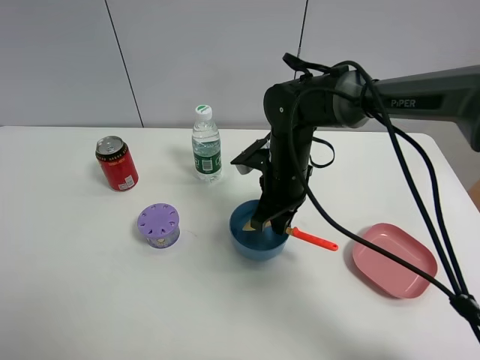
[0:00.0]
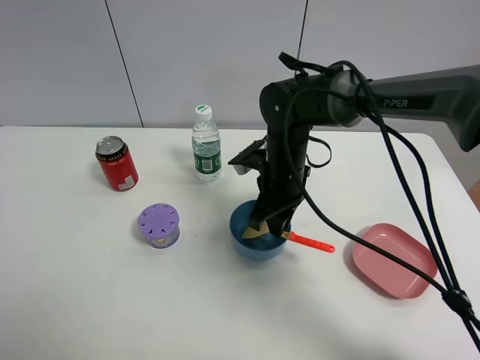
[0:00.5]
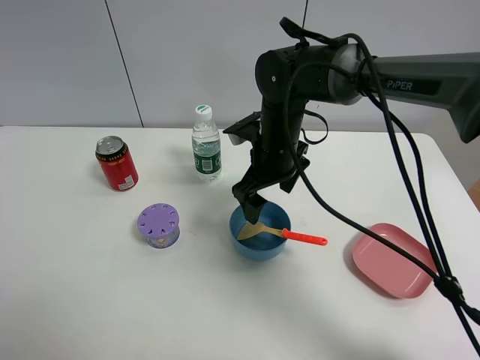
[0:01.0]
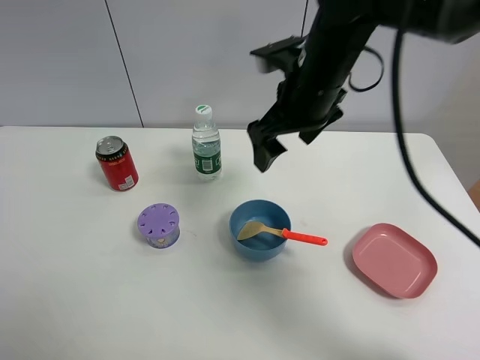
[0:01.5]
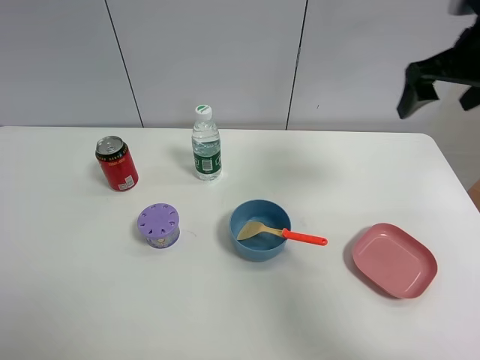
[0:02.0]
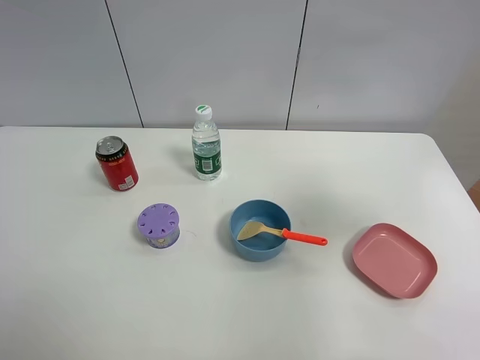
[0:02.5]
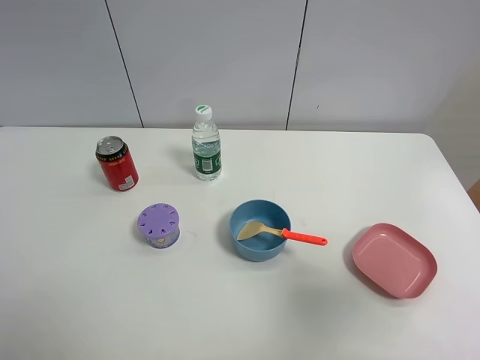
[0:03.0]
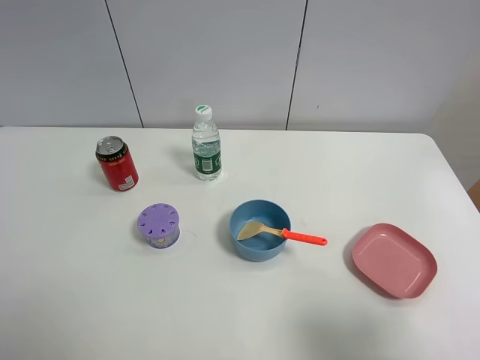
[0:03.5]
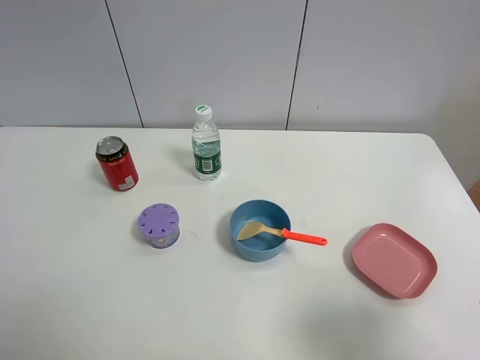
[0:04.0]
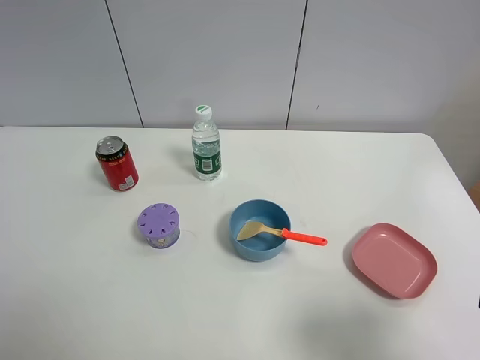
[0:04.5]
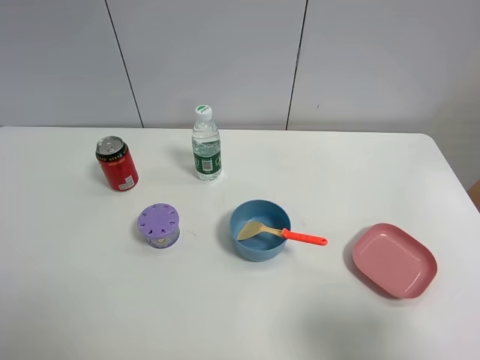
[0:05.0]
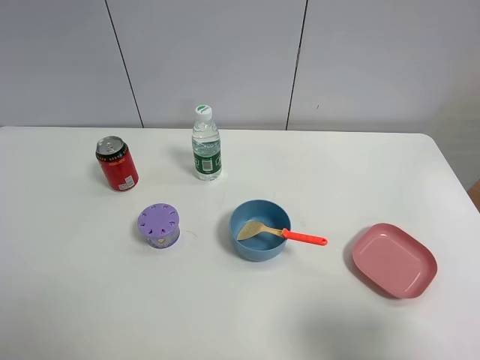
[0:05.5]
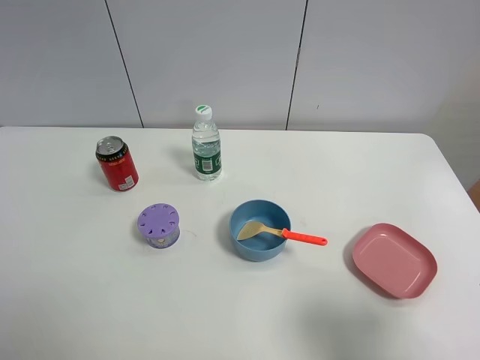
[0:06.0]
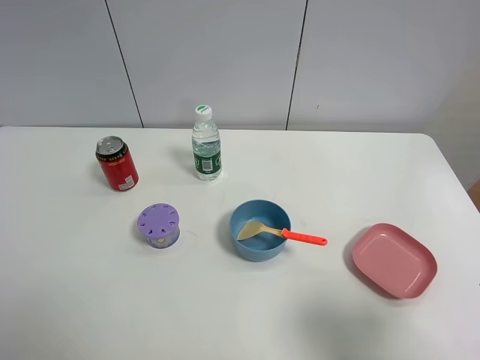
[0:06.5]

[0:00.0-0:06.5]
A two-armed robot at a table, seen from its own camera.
Task of the whole recording: the gripper move the object.
0:00.0 to 0:02.0: The right gripper shifts roughly 30 cm to the right and upward, and opens its fingers.
0:02.0 to 0:04.5: The right gripper goes roughly 30 cm backward.

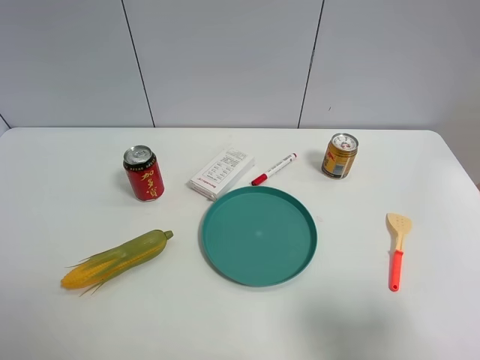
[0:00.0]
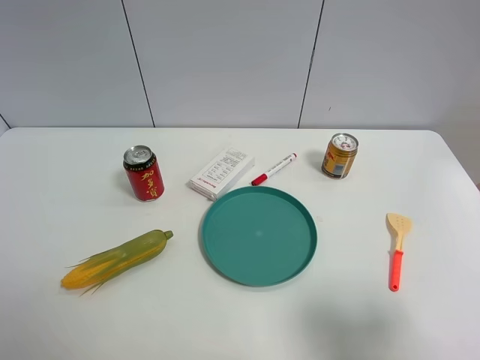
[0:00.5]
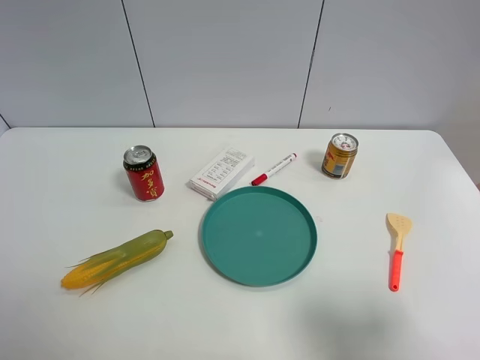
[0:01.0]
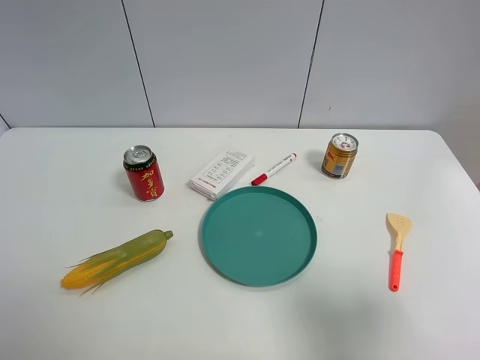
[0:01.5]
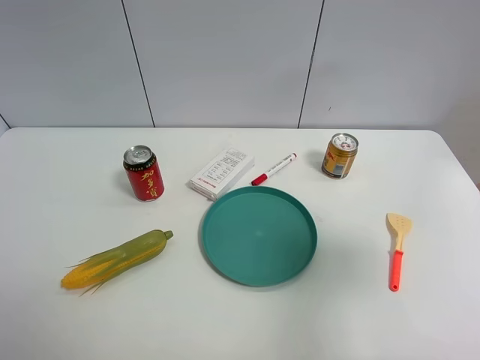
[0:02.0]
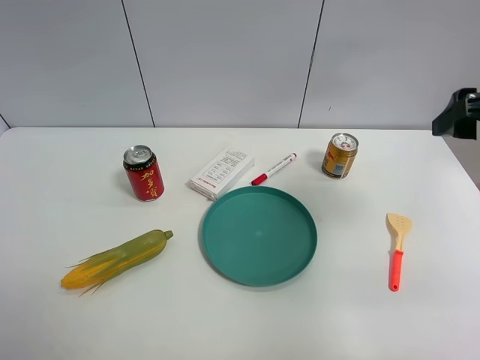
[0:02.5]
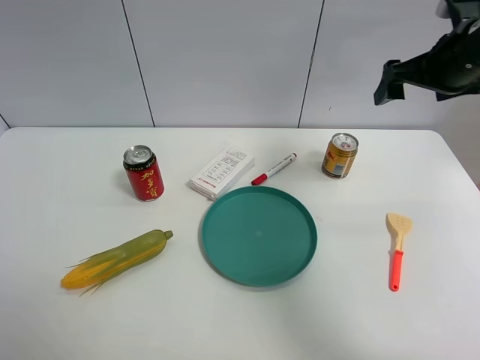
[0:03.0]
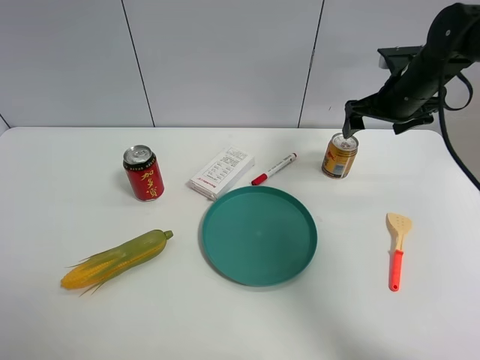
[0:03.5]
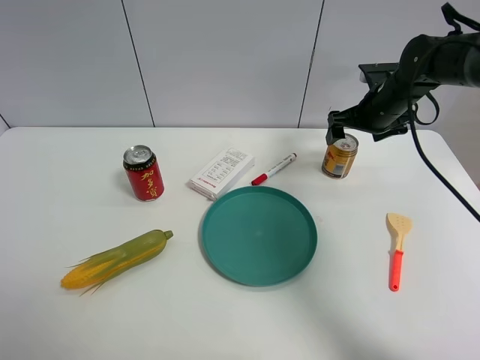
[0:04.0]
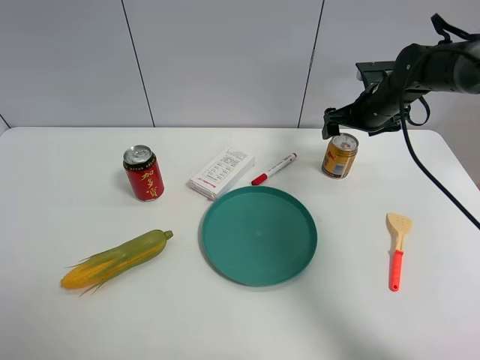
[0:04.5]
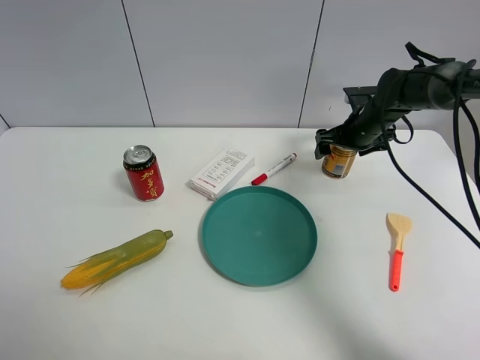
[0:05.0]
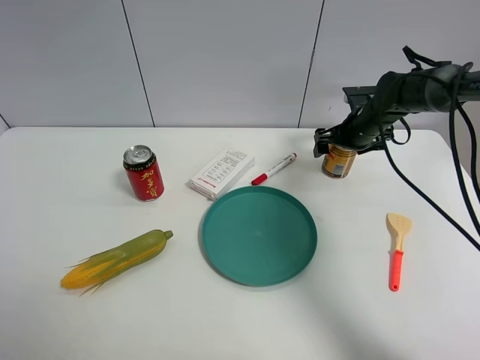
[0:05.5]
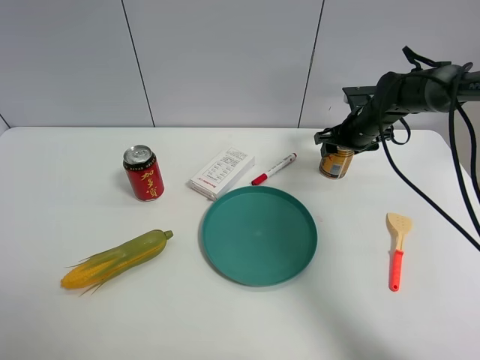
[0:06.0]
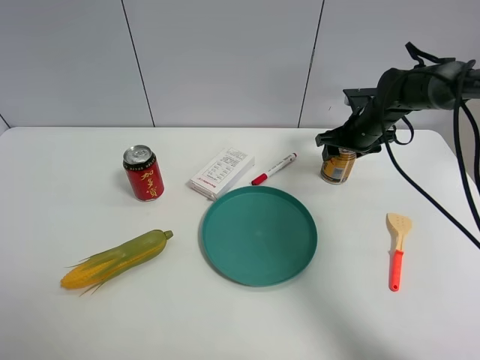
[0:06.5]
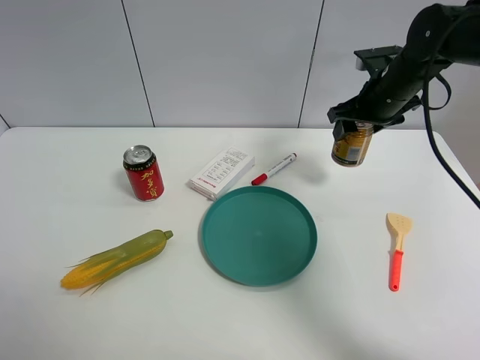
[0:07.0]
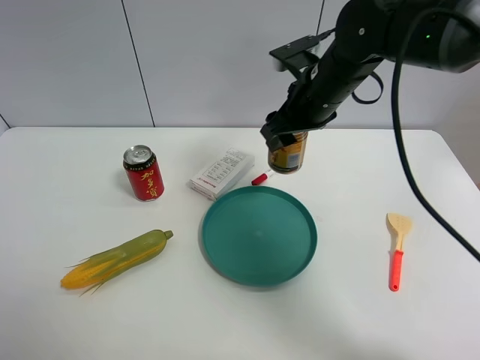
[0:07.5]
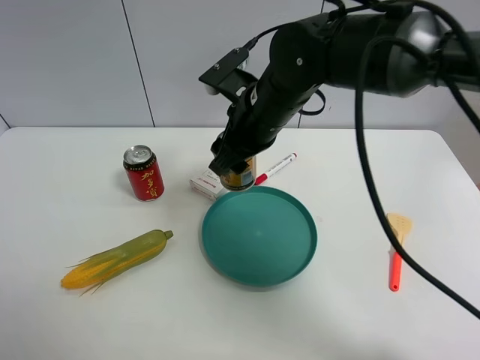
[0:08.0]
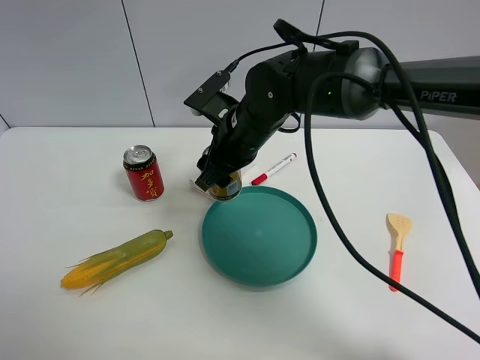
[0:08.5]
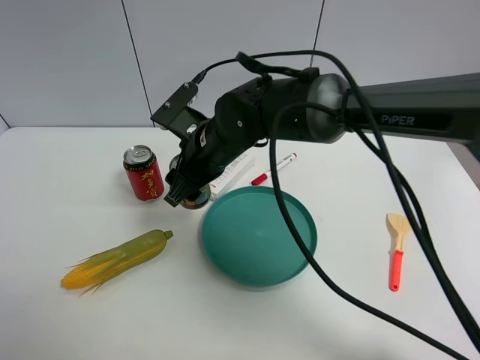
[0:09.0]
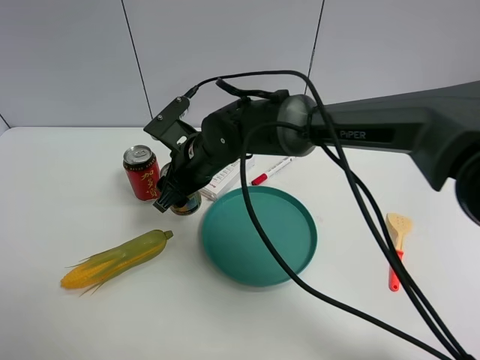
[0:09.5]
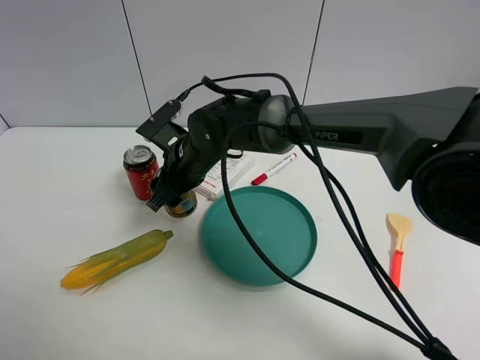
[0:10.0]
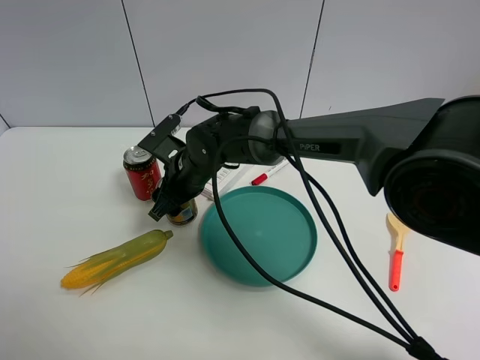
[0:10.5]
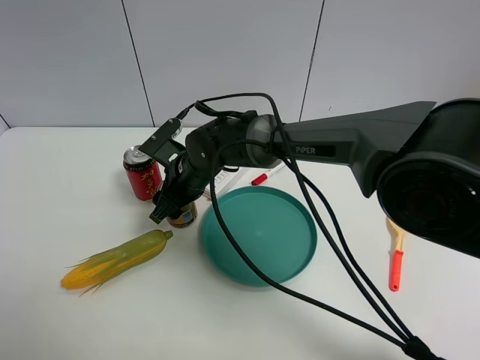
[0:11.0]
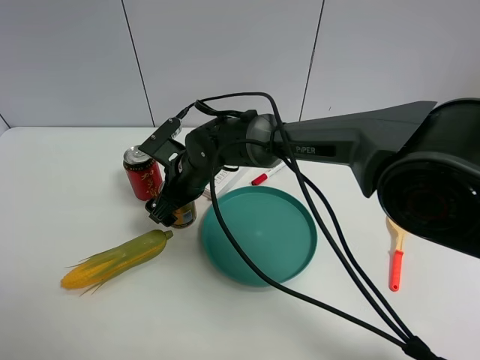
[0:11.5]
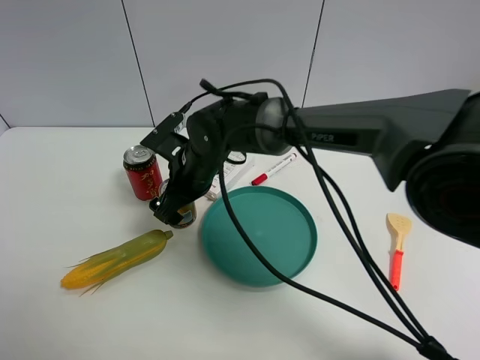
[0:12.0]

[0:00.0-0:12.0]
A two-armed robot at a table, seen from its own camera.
Task of the whole recording: the gripper move the object.
Step, 0:00.0 to 0:05.5: Grasp the red bull with the right gripper.
Step, 0:06.0 to 0:11.0: Place the red bull on the table with the right gripper.
0:00.0 to 0:02.0: The right gripper moves forward and upward, some 10 cm.
0:02.0 to 0:04.0: The right gripper heads forward and downward, covering roughly 35 cm.
0:04.0 to 0:06.0: The right gripper shifts roughly 5 cm downward, and closes.
0:06.0 to 0:08.0: The right gripper moves to the left, backward and upward, approximately 30 cm.
0:08.0 to 0:10.0: The right gripper is displaced to the left and downward by some 15 cm.
0:10.0 to 0:12.0: The right gripper opens up.

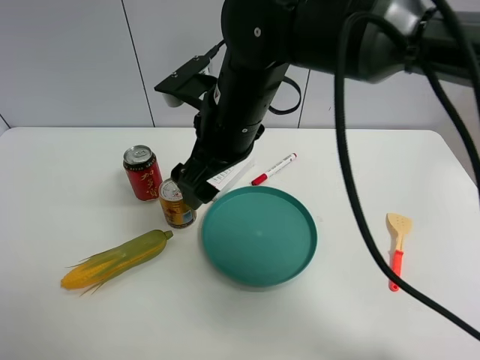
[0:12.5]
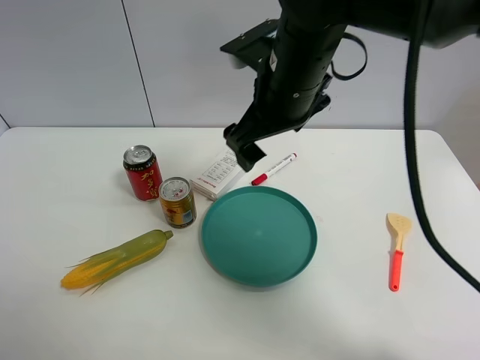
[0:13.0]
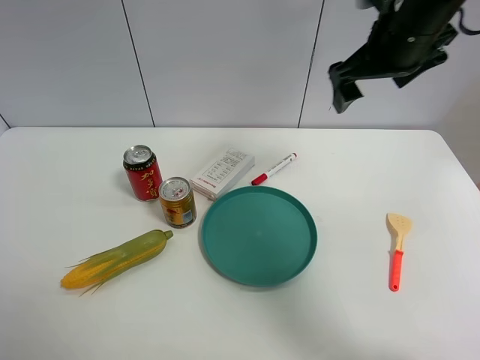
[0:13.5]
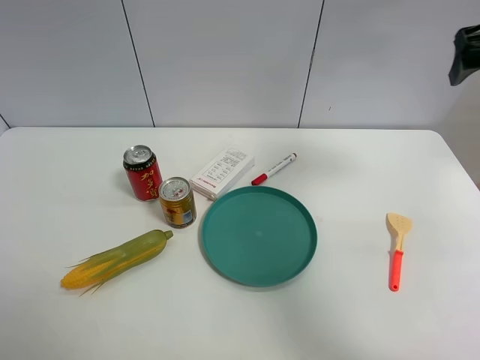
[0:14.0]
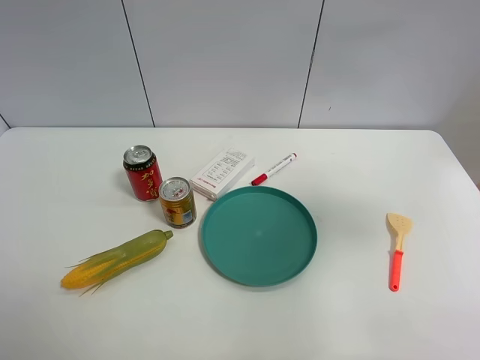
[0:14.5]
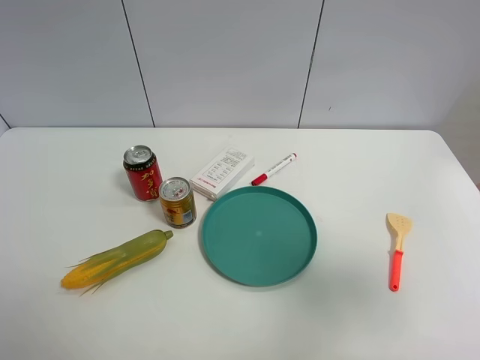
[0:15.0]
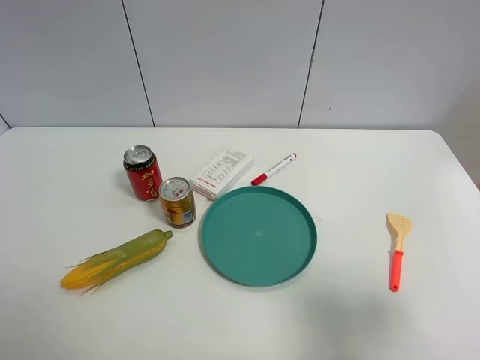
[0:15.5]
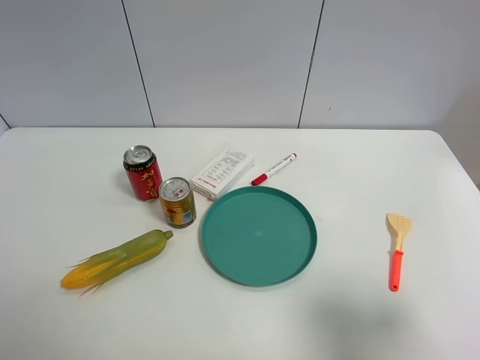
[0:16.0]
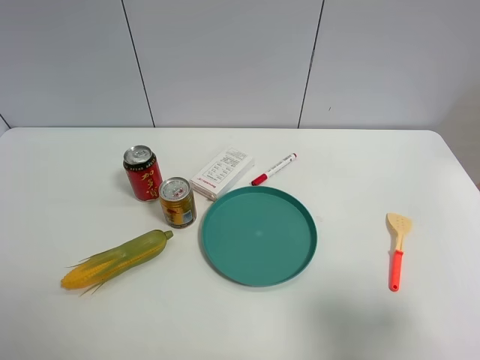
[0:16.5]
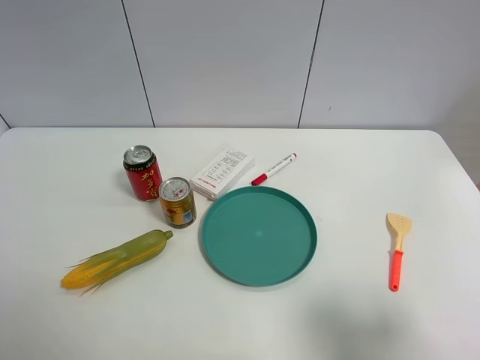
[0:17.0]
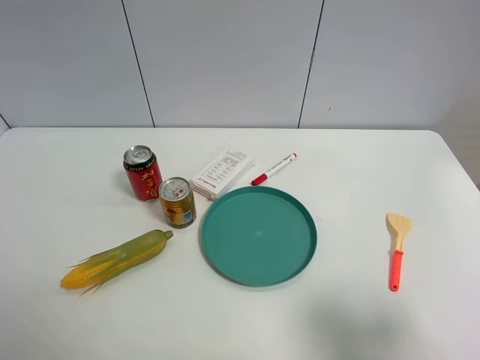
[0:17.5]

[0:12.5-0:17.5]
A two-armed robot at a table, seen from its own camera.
Task of the whole recording: the gripper move the object.
0:12.5 to 0:15.0: The right gripper goes some 40 cm to the right and backward.
0:15.0 to 0:17.5: The right gripper is displaced downward by about 10 cm.

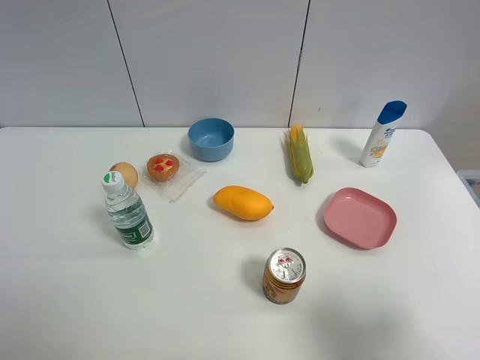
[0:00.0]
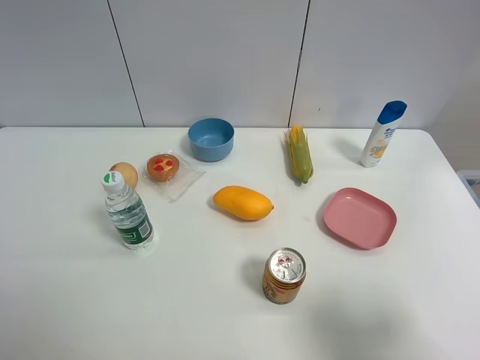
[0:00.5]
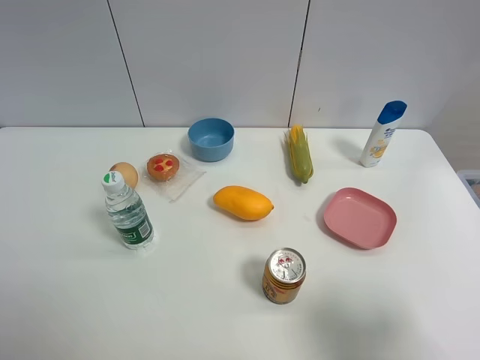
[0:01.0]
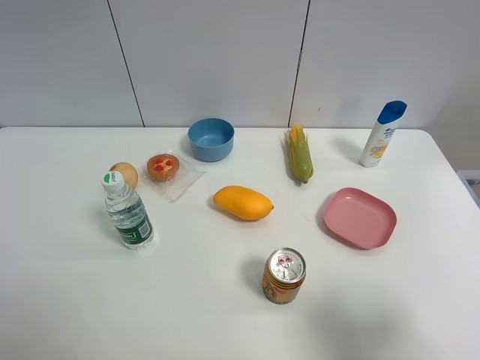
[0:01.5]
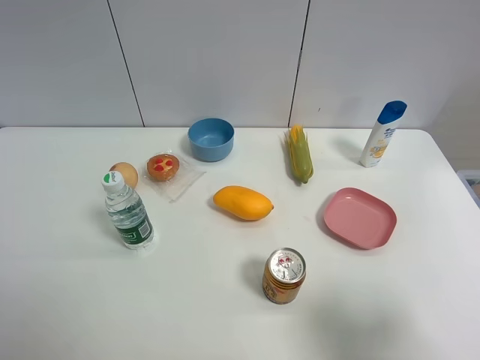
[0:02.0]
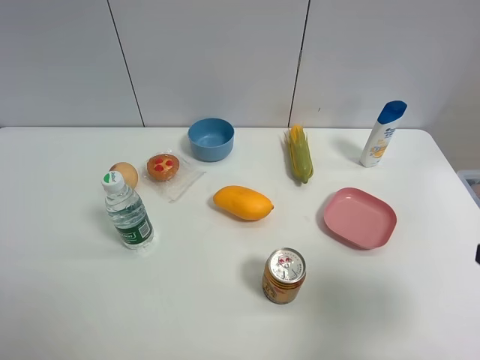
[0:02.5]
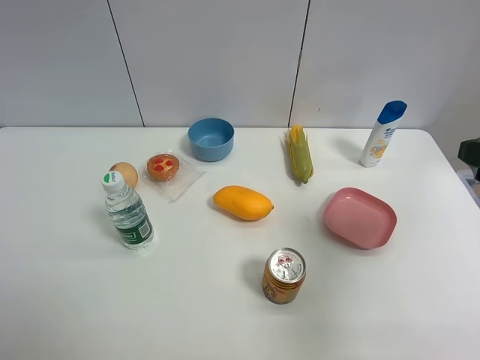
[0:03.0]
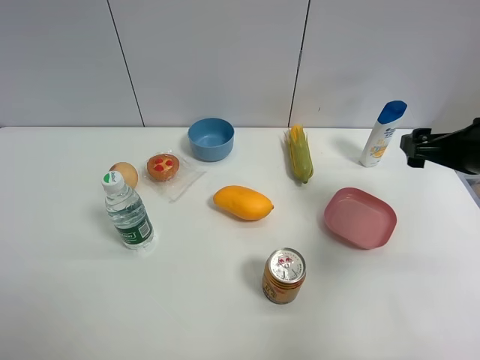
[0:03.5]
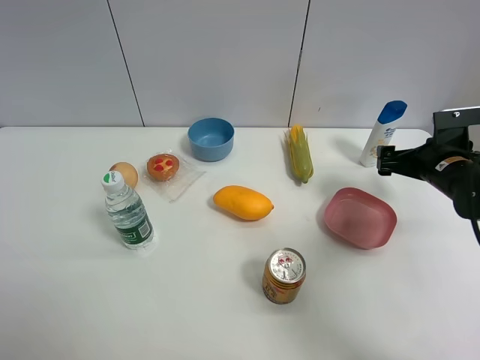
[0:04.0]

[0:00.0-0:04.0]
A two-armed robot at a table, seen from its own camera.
Task of the whole recording: the gripper move the object.
0:00.0 to 0:02.0: The two grippers keep their place.
0:02.0 to 0:04.0: The right gripper is displaced forward and downward by about 35 cm.
